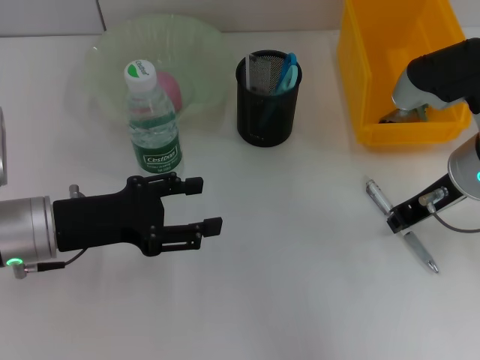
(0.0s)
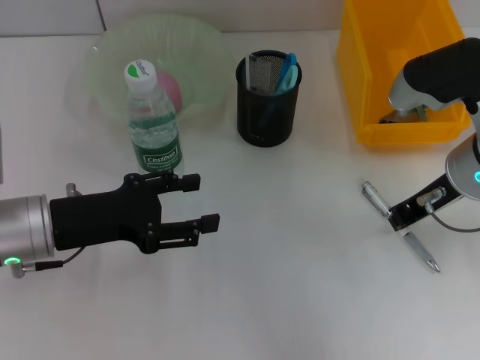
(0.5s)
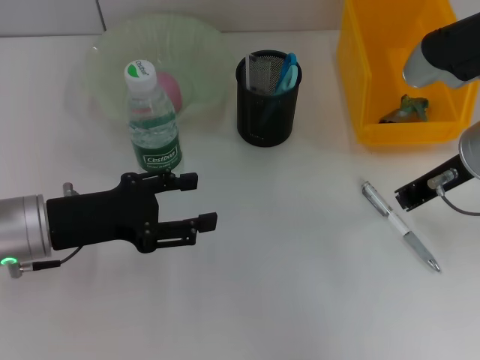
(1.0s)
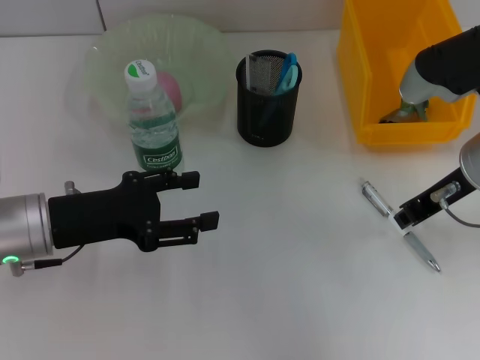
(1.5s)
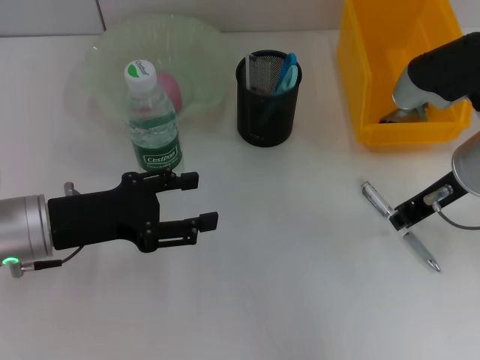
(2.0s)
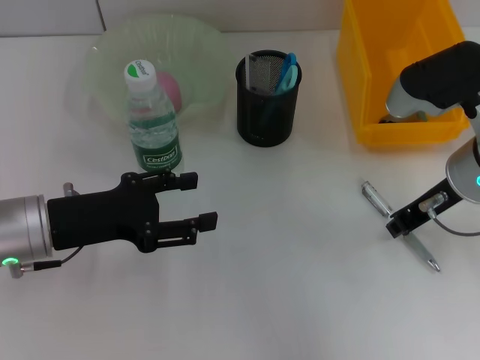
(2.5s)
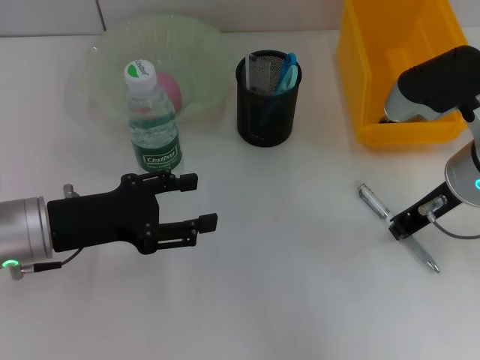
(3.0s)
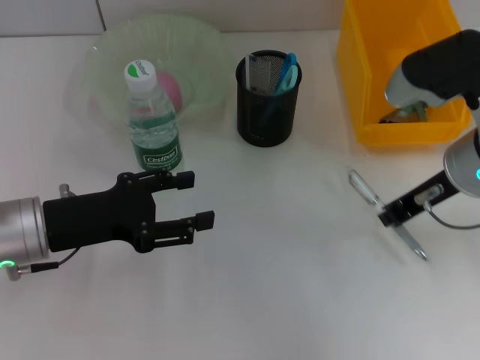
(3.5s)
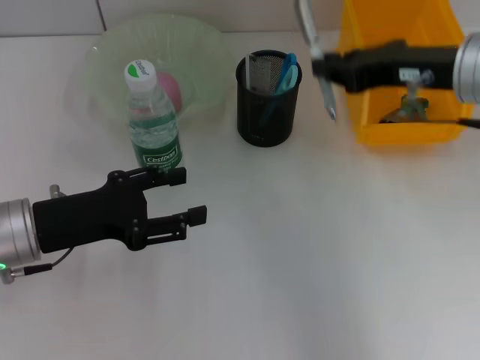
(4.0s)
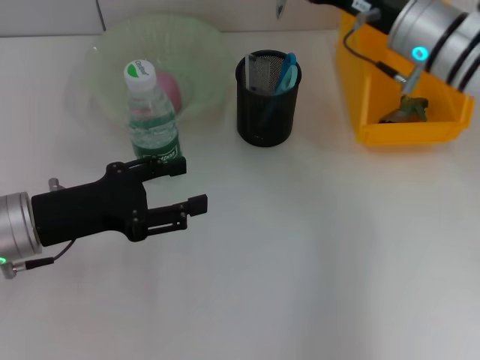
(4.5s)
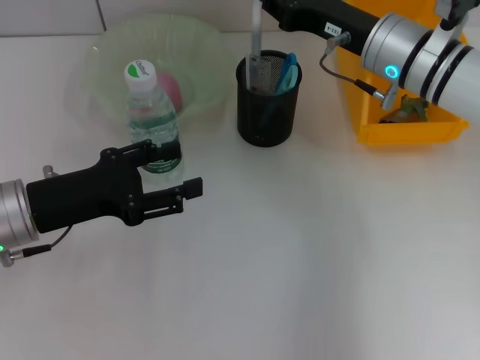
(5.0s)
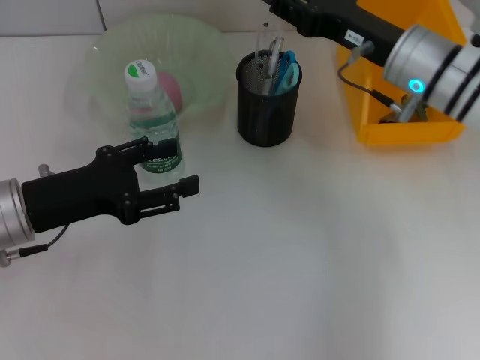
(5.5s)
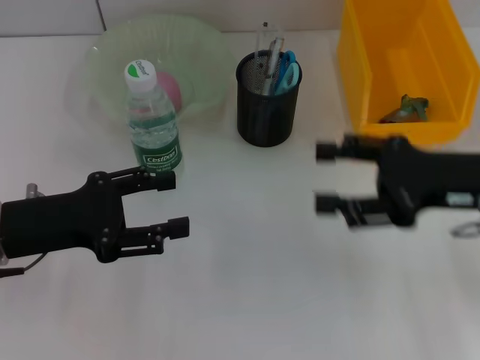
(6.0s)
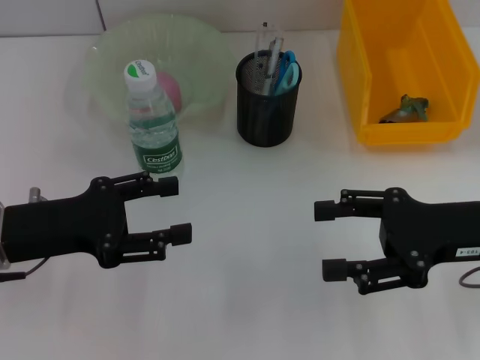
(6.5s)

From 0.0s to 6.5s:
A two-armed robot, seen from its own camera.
Step, from 0.0s to 3.0s: Grab the gray spring-action pen with the right hand.
Step, from 3.5s to 5.0s: Place the gray spring-action pen into the pen holder with the right hand.
From 0.0s to 2.0s: There are only small adjustments of the grippers.
From 2.0s to 4.5s: The right gripper moves forward, some 10 cm.
From 4.5s to 6.5s: The right gripper goes some 15 cm backward and to the right, and opens.

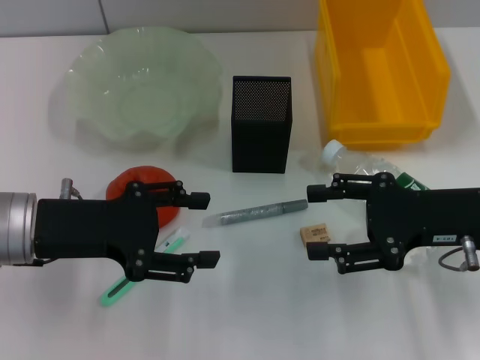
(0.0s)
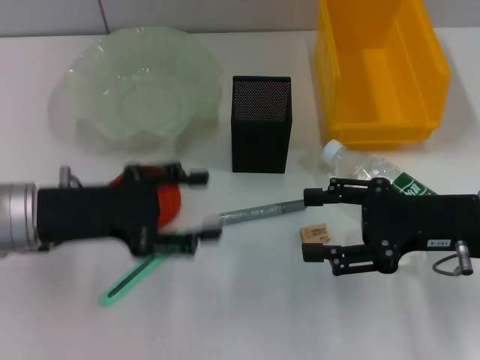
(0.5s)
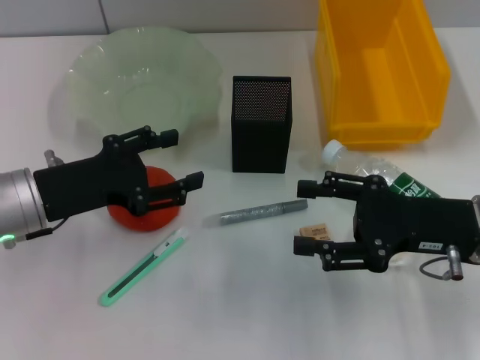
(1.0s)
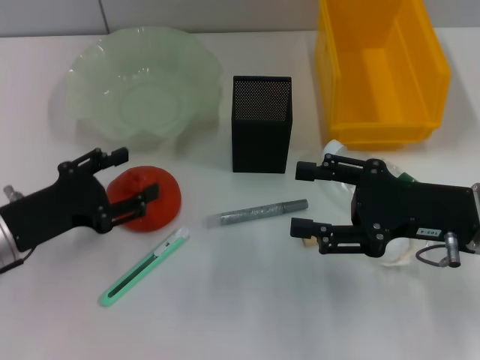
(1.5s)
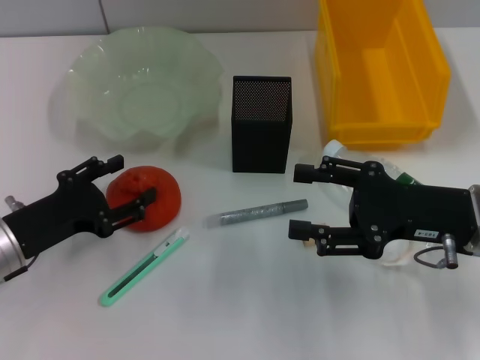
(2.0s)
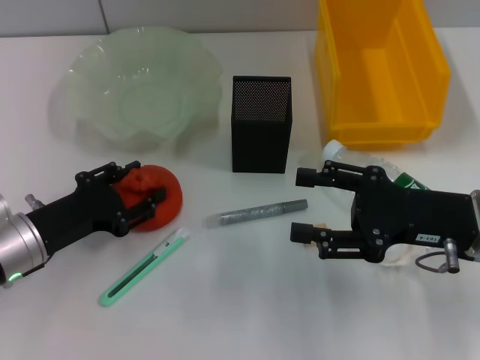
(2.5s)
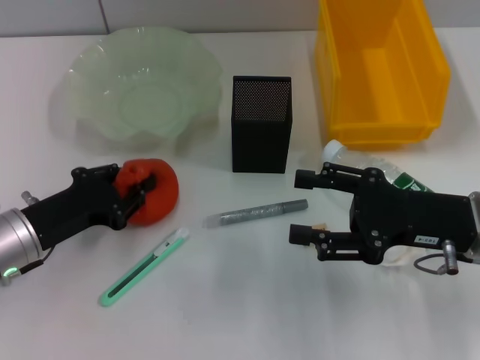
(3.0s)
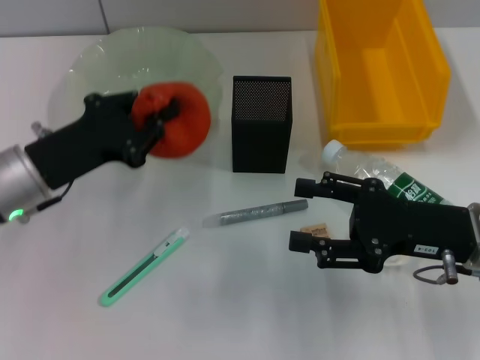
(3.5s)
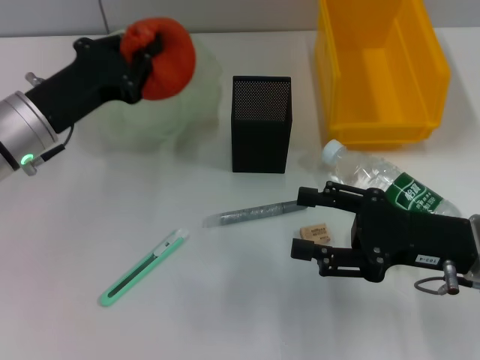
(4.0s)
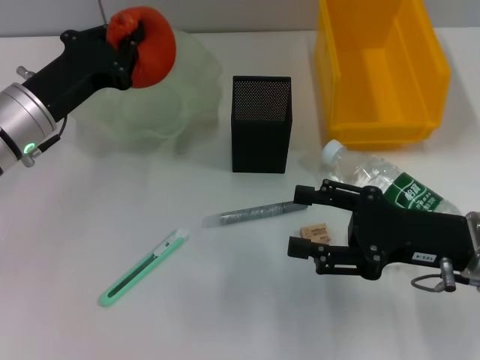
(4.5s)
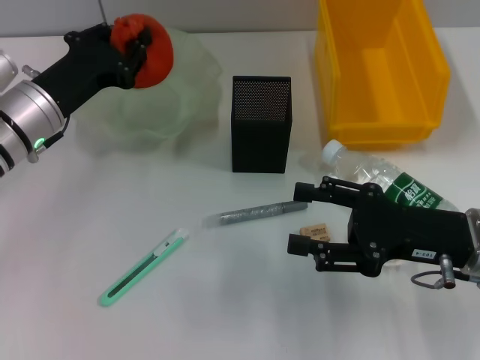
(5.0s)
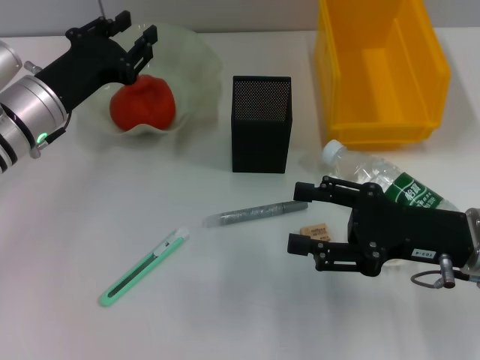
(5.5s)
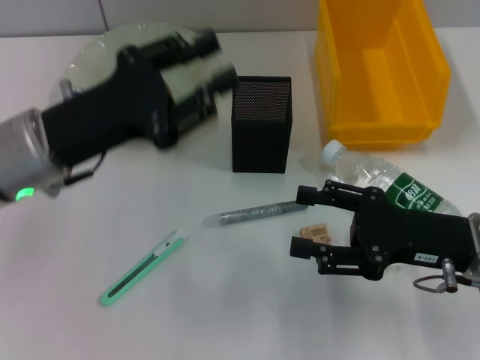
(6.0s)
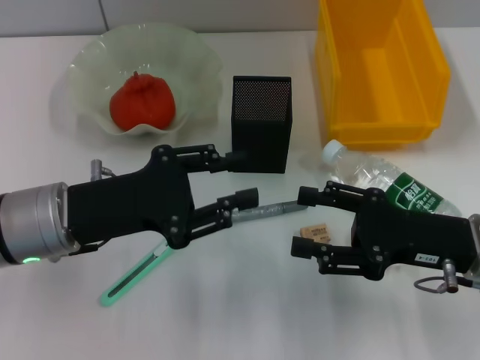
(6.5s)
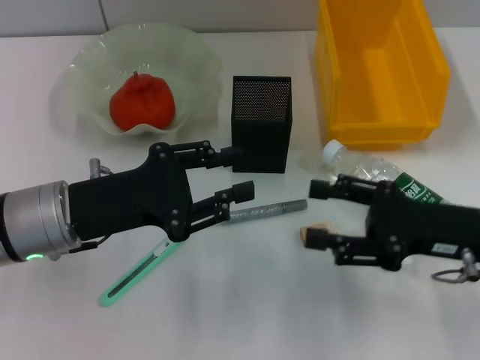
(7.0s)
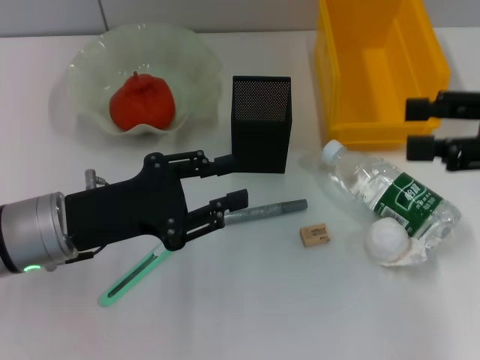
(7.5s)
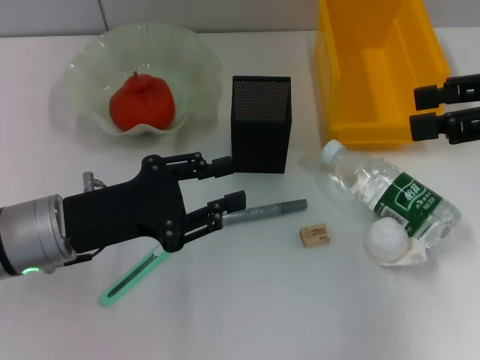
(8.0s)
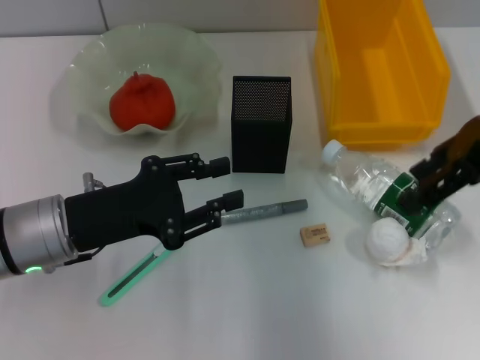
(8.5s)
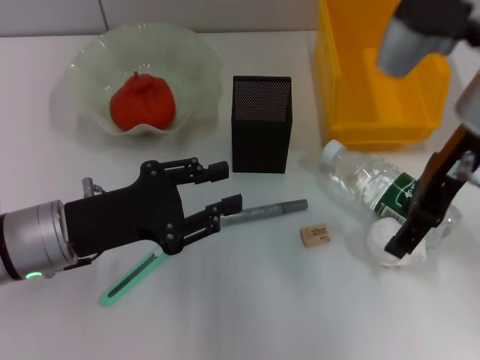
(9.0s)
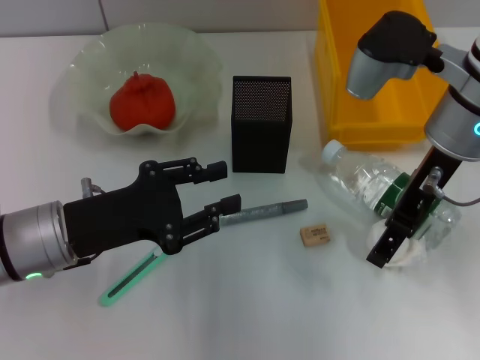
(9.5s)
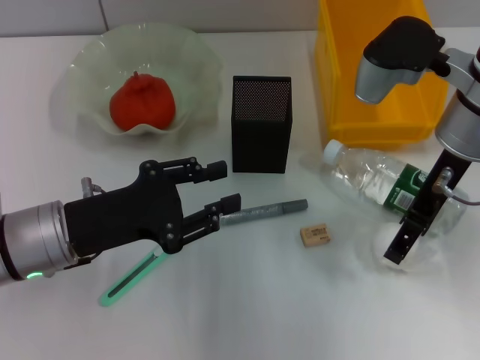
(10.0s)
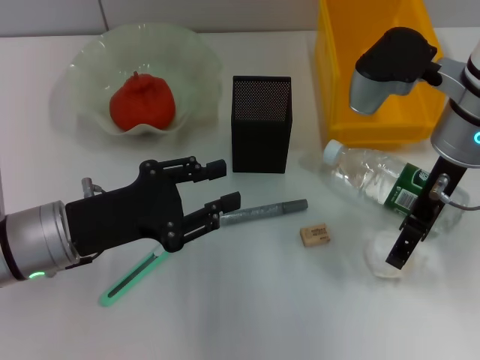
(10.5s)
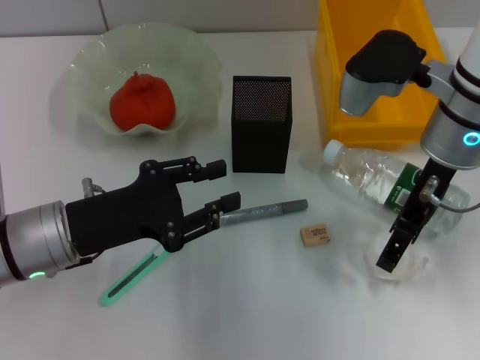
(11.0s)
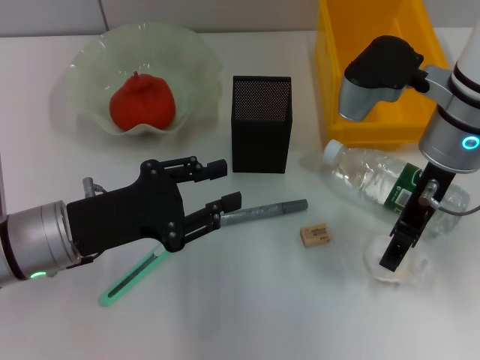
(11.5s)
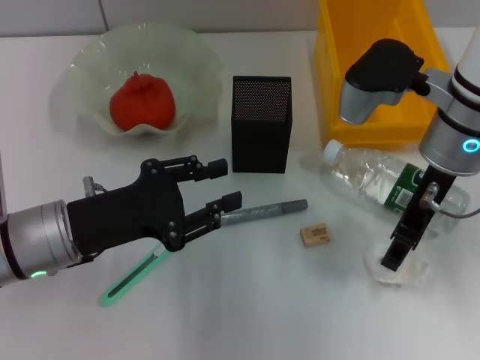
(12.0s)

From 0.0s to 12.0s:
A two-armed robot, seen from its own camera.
Step, from 0.0s to 2.0s: Grab the orange with the left hand.
Step, from 2.5s to 5.5s: Place the orange into the fruit bowl with the left hand.
Step, from 6.0s to 11.5s: Grab the paper ball with the right hand.
From 0.0s to 2.0s: The left gripper travels downward by about 5 cm.
From 2.0s to 4.0s: The left gripper moves forward and upward, some 10 cm, and closes up.
From 4.0s to 6.0s: The left gripper changes place by about 5 cm, and opens up.
From 6.0s to 8.0s: The left gripper moves roughly 5 cm. Meanwhile the right gripper moves upward, some 20 cm.
From 8.0s to 10.0s: The right gripper heads to the left, downward and forward, covering roughly 15 cm.
From 10.0s to 12.0s: The right gripper closes up.

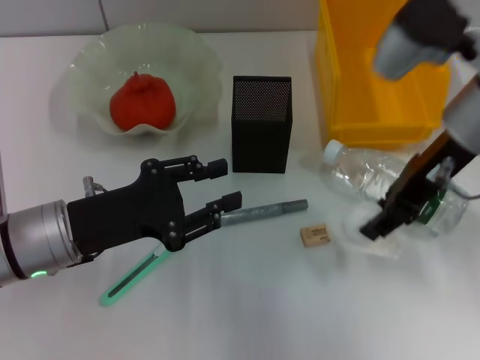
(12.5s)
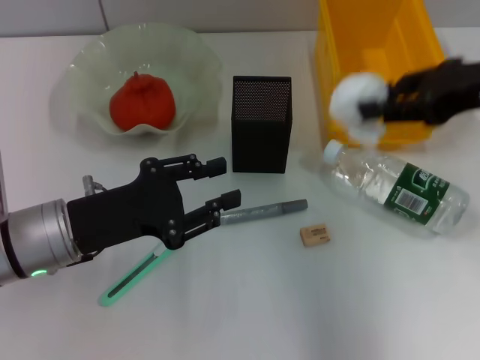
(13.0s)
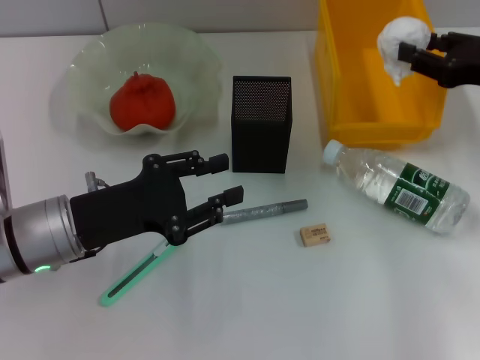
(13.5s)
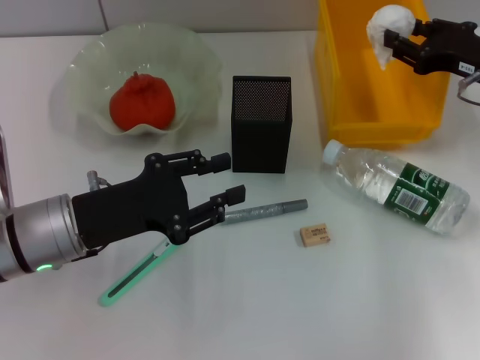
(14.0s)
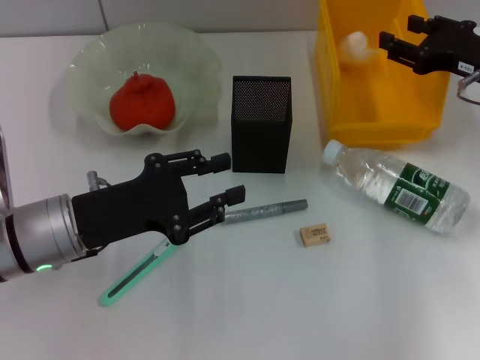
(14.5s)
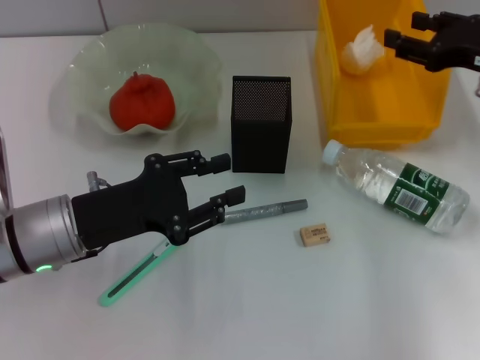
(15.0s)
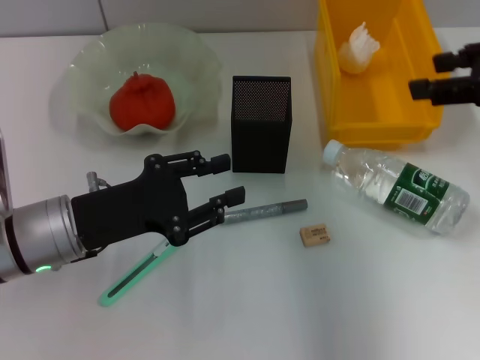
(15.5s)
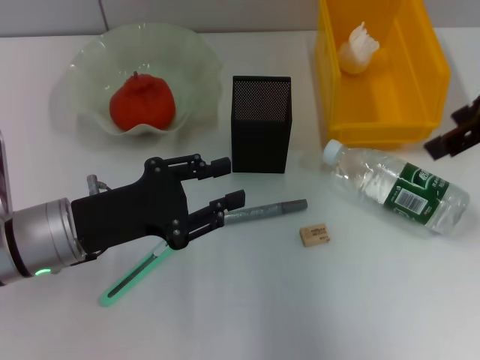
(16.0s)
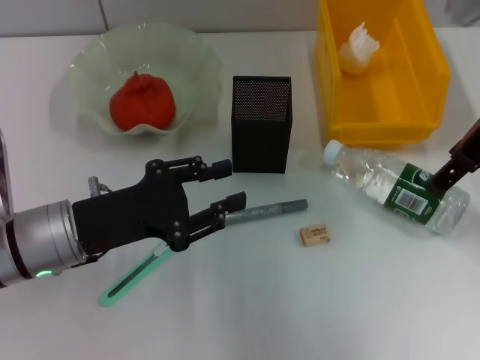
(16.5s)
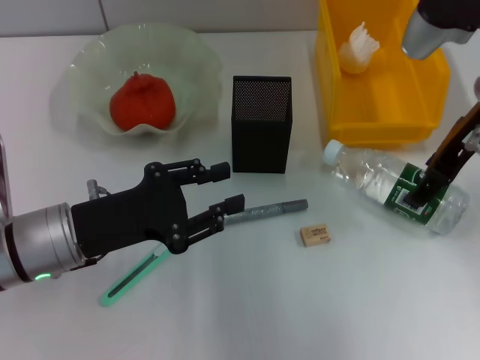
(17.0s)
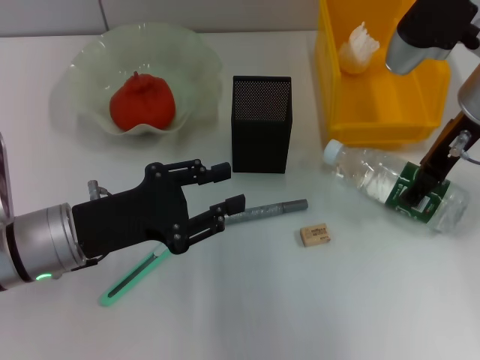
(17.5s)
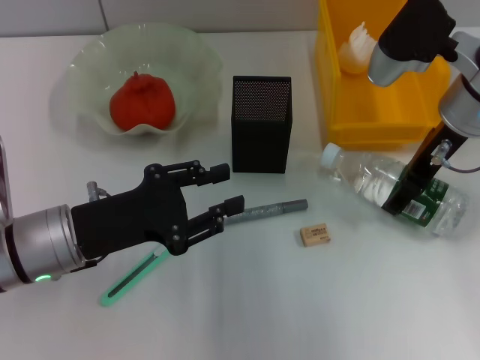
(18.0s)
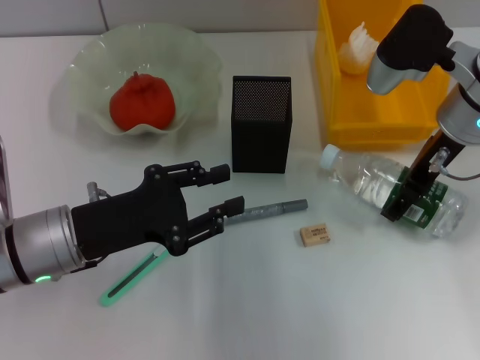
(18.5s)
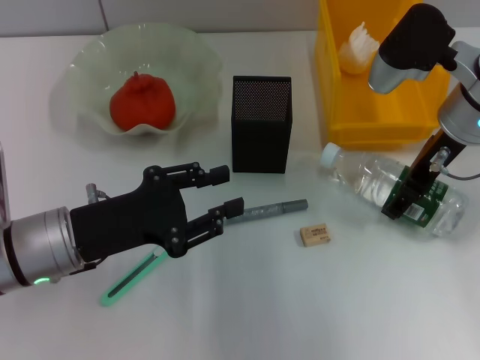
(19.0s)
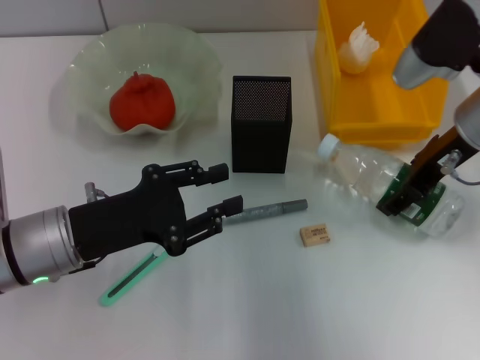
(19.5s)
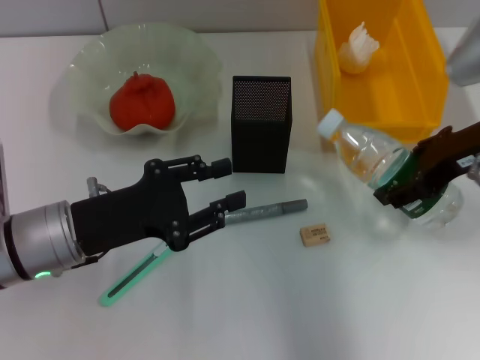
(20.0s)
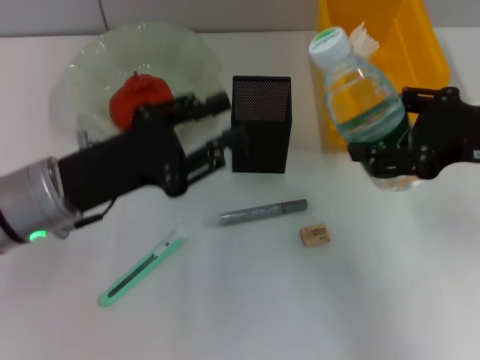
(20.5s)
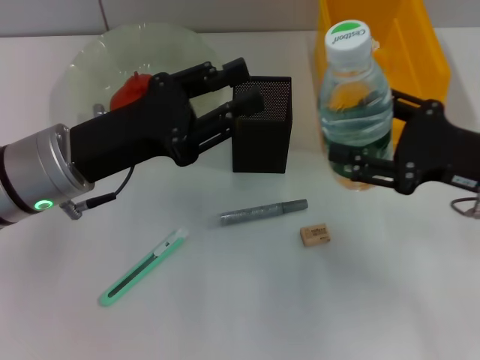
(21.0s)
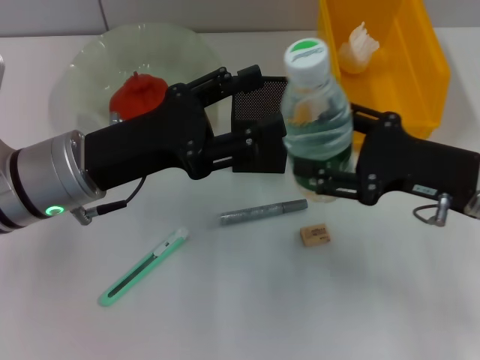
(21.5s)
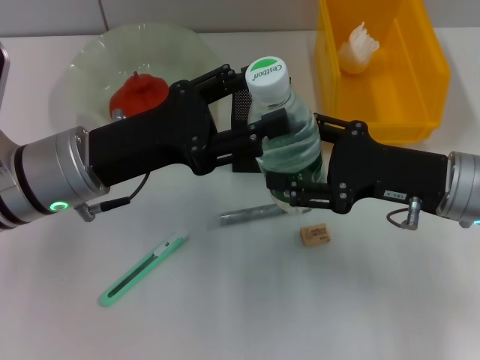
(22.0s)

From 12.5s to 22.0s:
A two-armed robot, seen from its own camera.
Step, from 12.5s to 14.0s: Place the paper ball into the trash can with the right hand.
Step, from 14.5s to 18.5s: Grab the water bottle with the right hand.
From 12.5s to 14.5s: The right gripper heads to the right and downward, covering about 15 cm.
From 14.5s to 16.5s: The right gripper goes roughly 10 cm upward and to the left, and opens up.
From 16.5s to 18.0s: The right gripper heads downward, covering approximately 5 cm.
From 18.0s to 20.0s: The right gripper travels backward by about 5 cm.
From 20.0s to 22.0s: The right gripper moves downward, roughly 10 cm; the left gripper moves about 5 cm, and opens.
